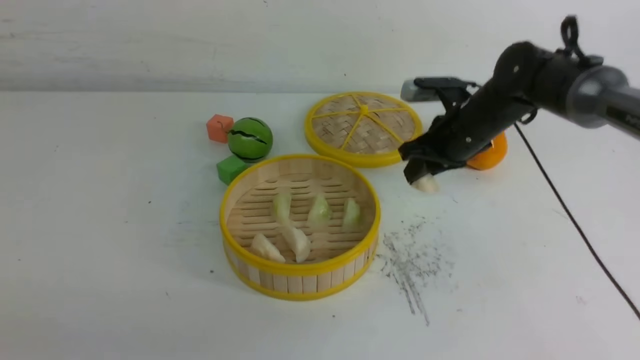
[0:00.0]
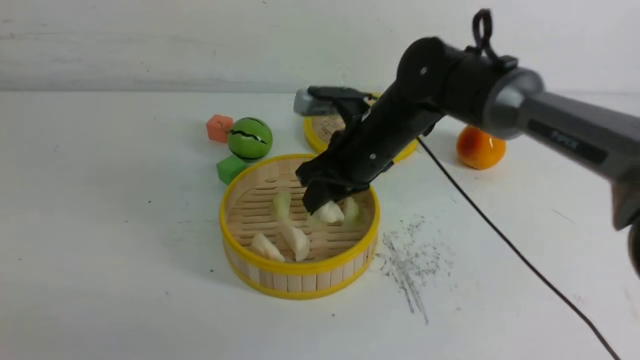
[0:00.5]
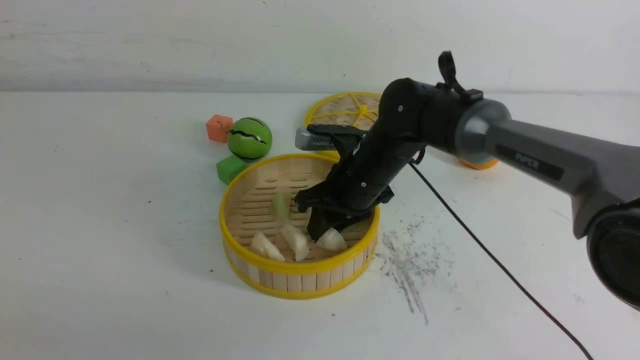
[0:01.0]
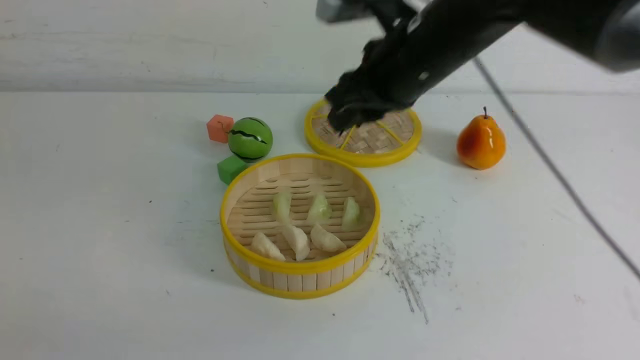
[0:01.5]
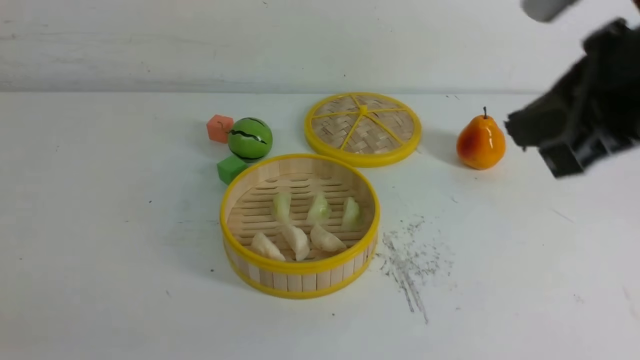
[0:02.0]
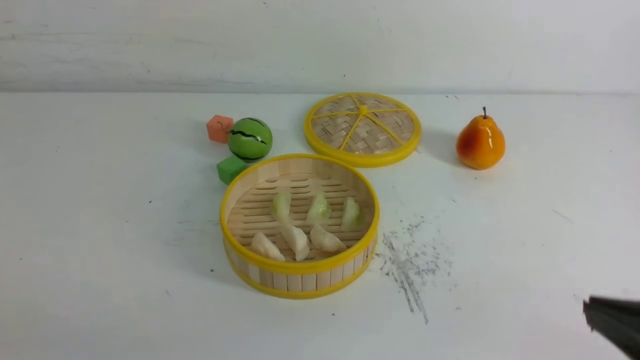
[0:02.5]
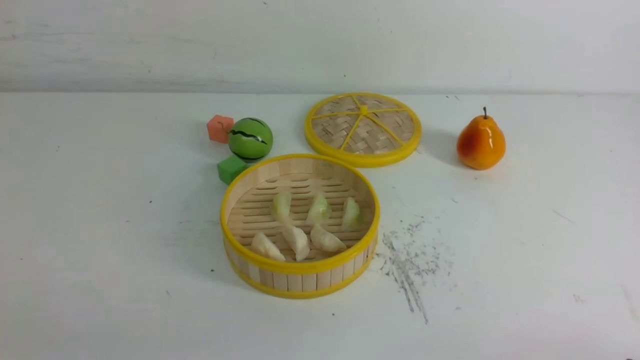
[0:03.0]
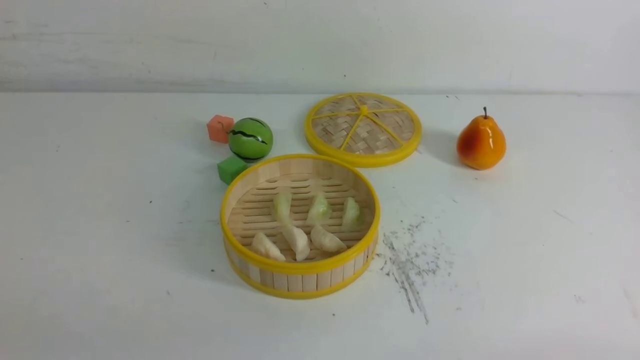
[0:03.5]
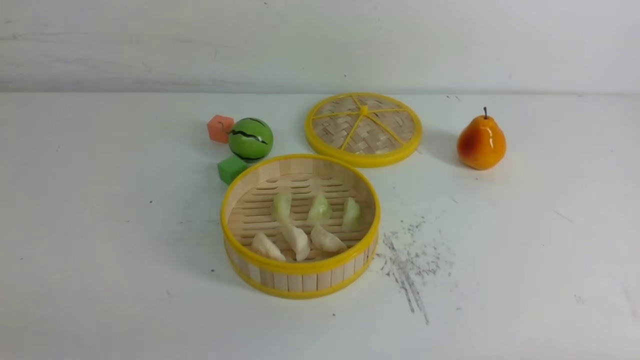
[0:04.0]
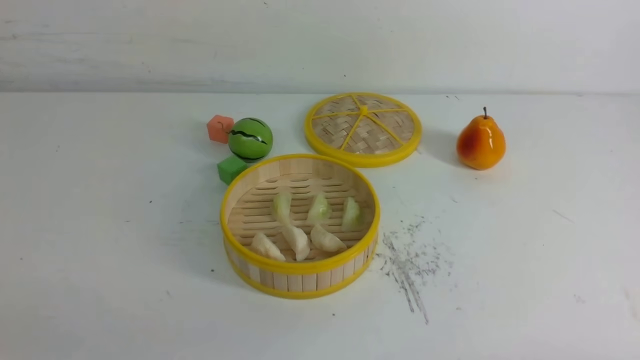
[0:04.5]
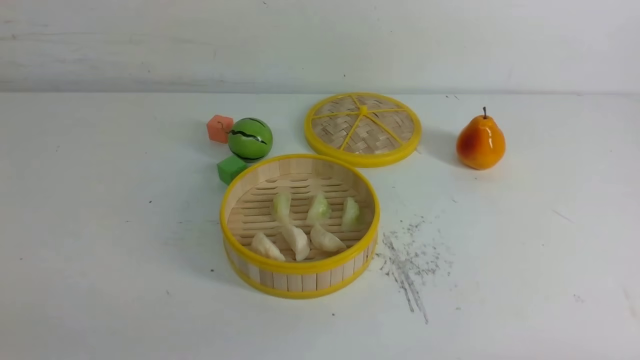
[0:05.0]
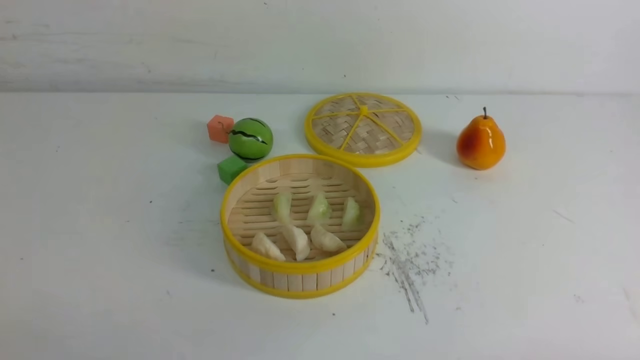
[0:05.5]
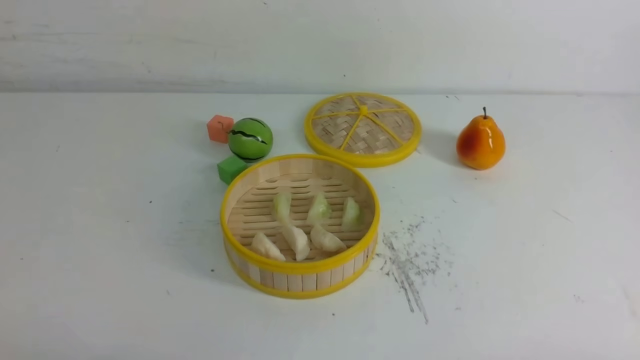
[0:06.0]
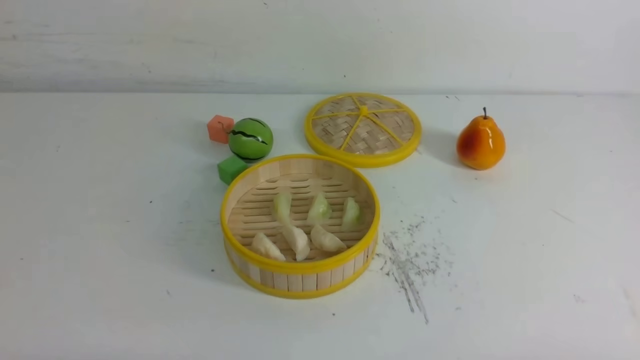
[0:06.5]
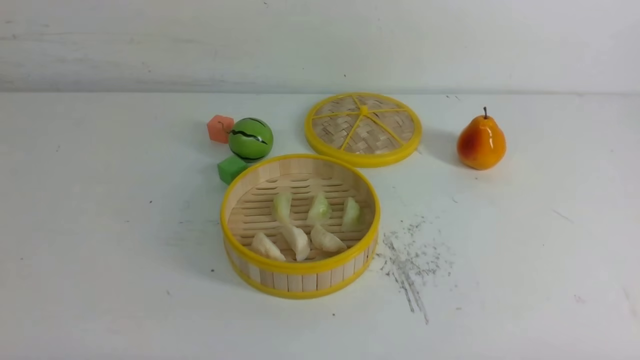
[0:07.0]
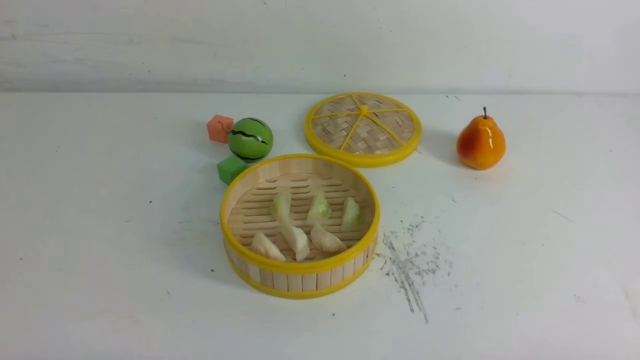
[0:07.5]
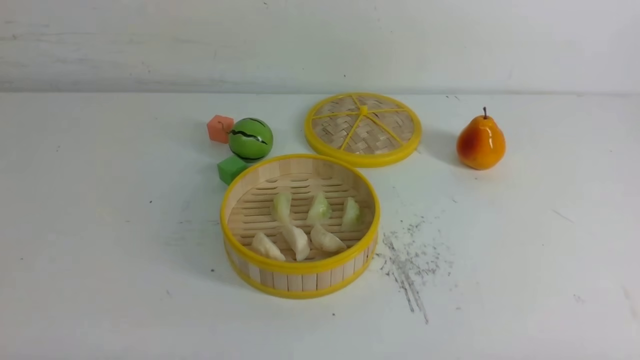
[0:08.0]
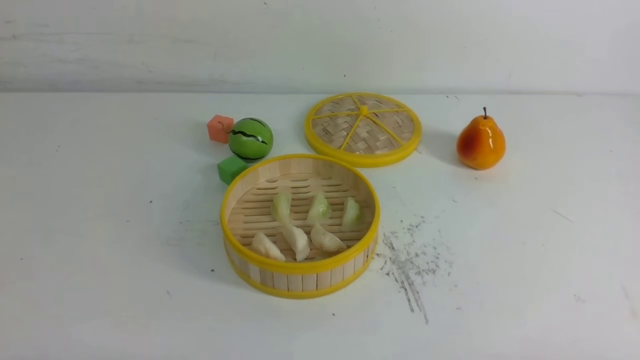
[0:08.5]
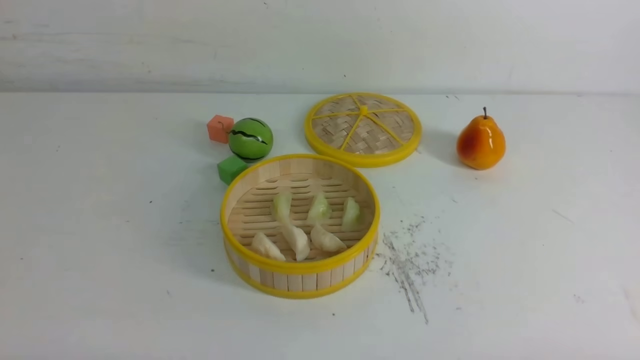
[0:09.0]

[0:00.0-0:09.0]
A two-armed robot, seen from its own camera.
Task of the whole recording: put the dumplings into the steamer on the white table.
0:00.0 to 0:02.0: The right gripper goes some 35 cm backward and upward, and closes up.
0:02.0 to 0:04.5: The right gripper shifts approximately 30 cm downward, backward and to the right.
0:07.0 to 0:09.0: Neither gripper changes place.

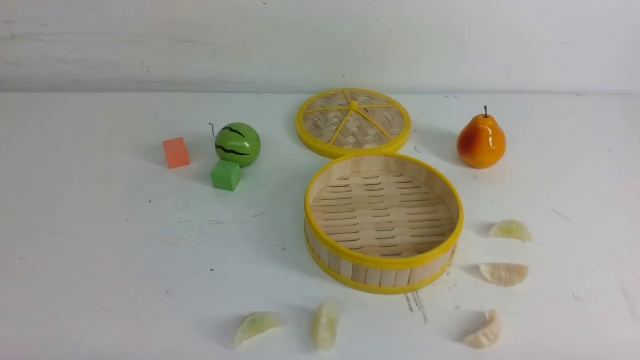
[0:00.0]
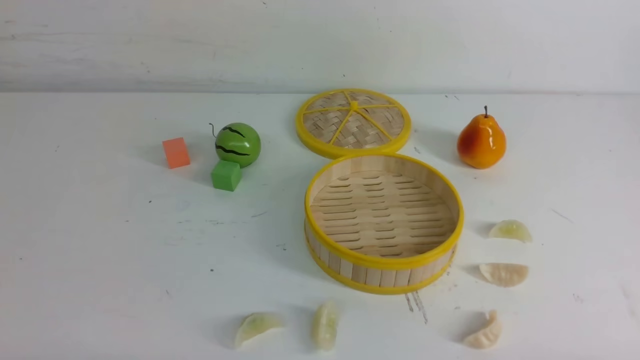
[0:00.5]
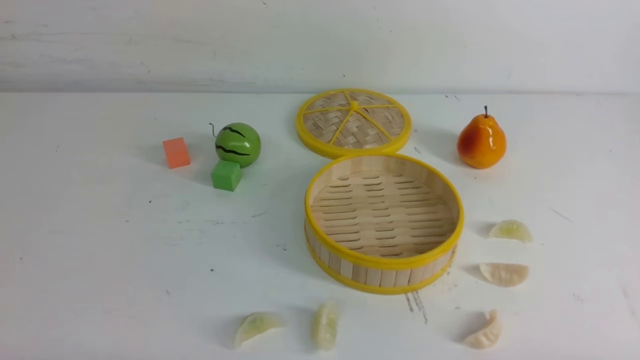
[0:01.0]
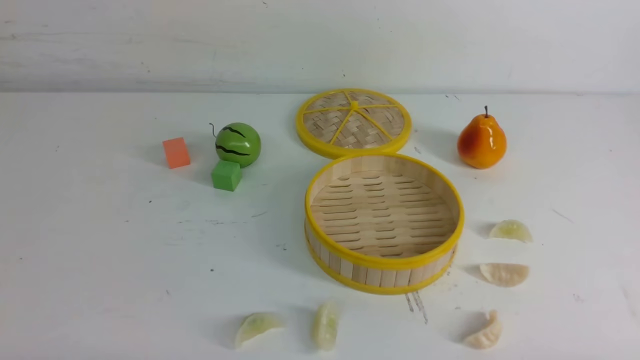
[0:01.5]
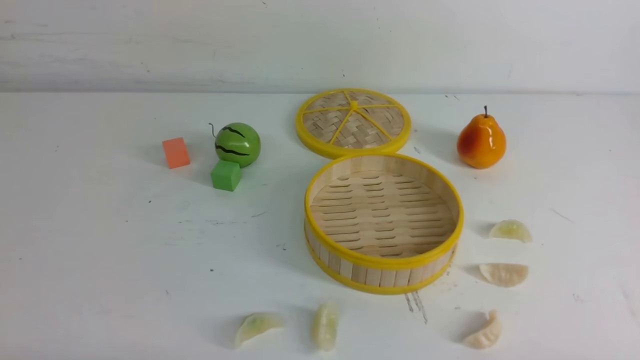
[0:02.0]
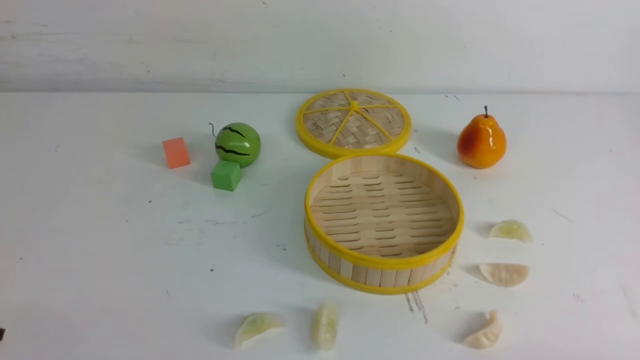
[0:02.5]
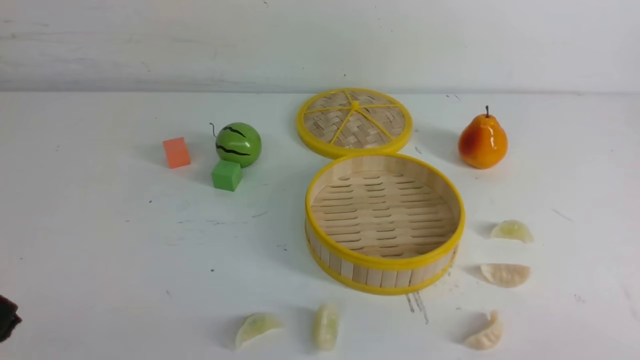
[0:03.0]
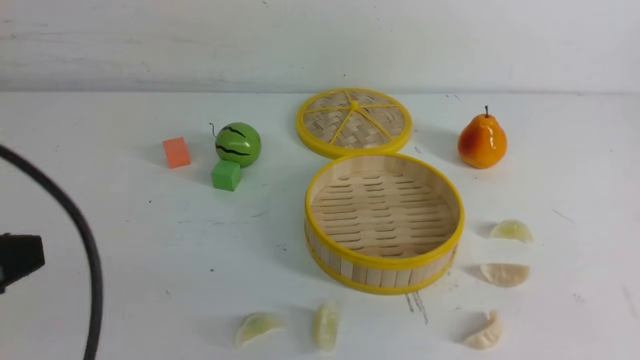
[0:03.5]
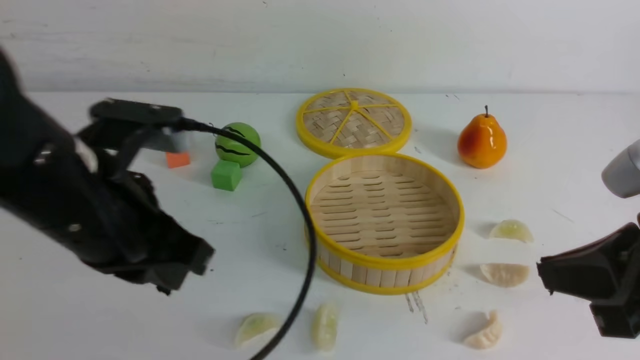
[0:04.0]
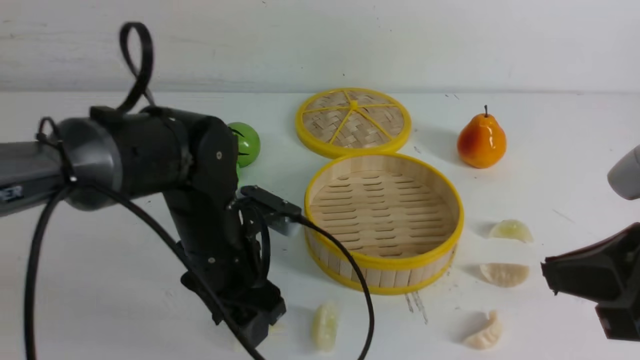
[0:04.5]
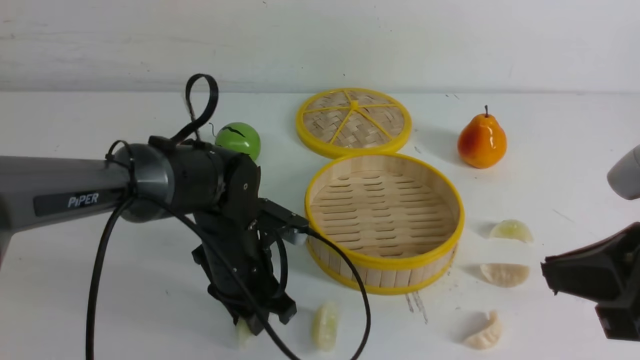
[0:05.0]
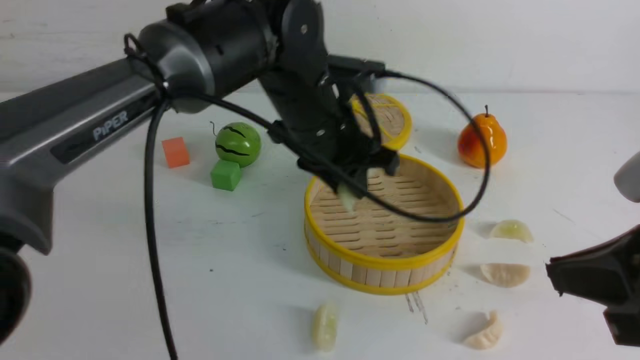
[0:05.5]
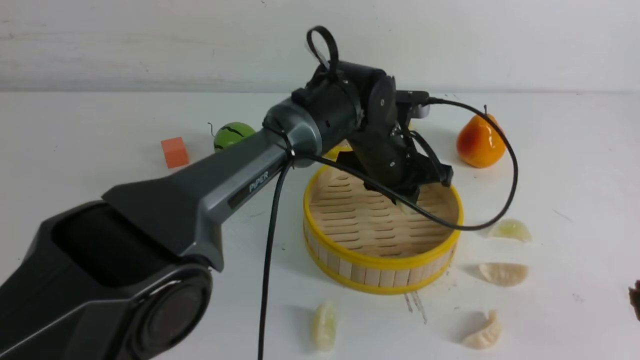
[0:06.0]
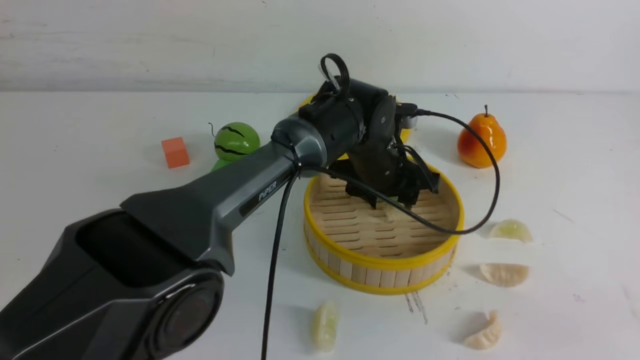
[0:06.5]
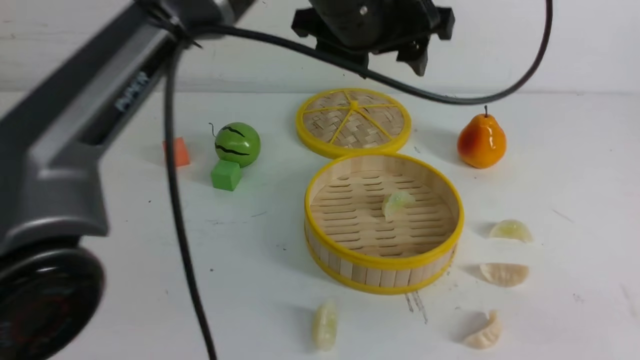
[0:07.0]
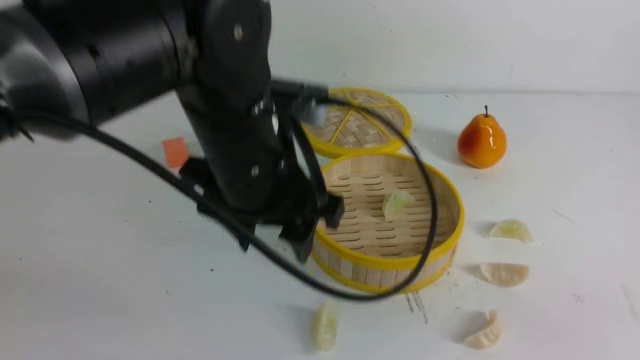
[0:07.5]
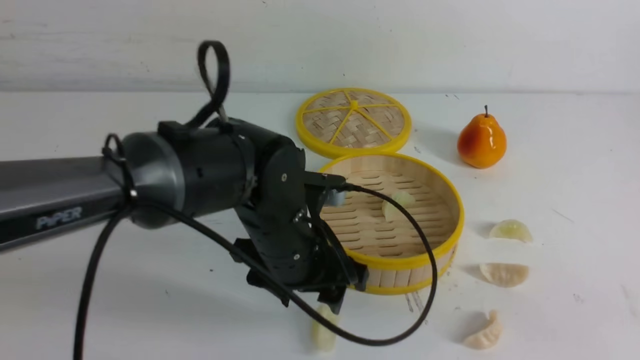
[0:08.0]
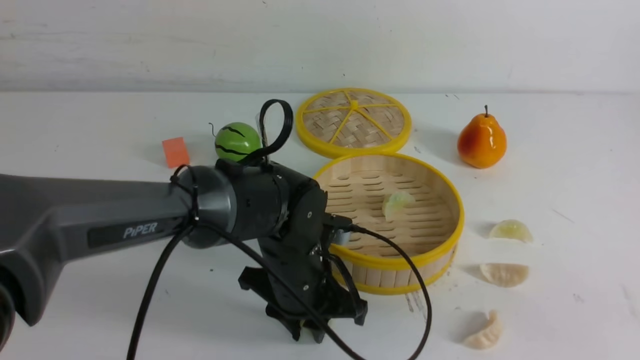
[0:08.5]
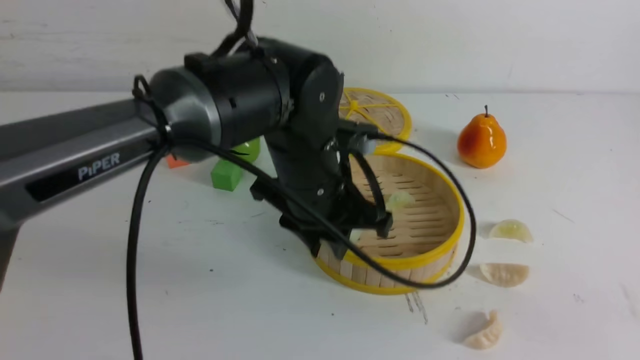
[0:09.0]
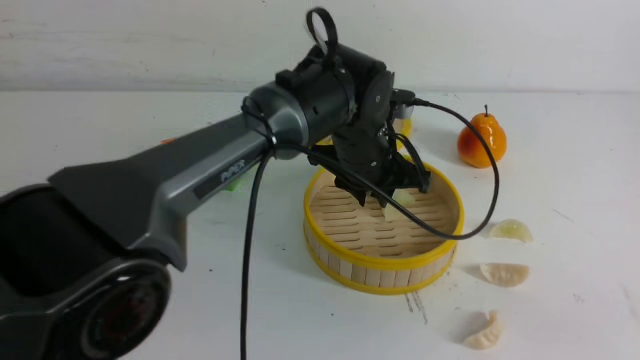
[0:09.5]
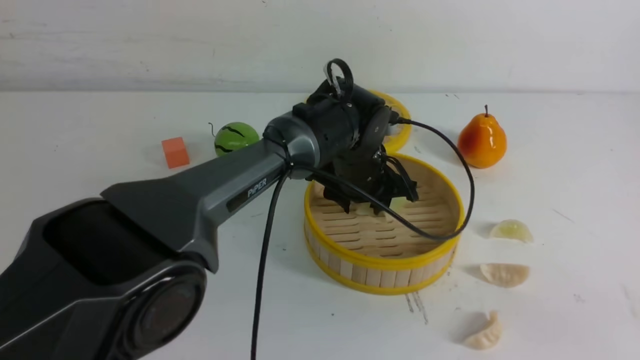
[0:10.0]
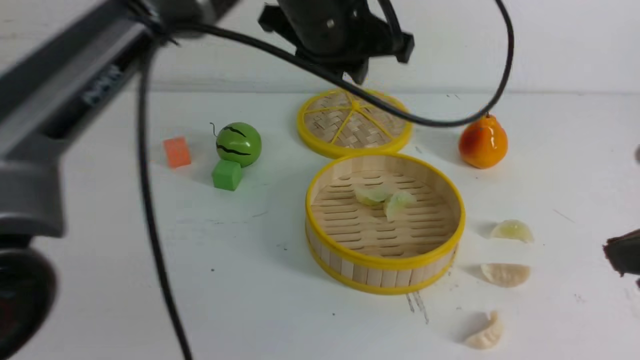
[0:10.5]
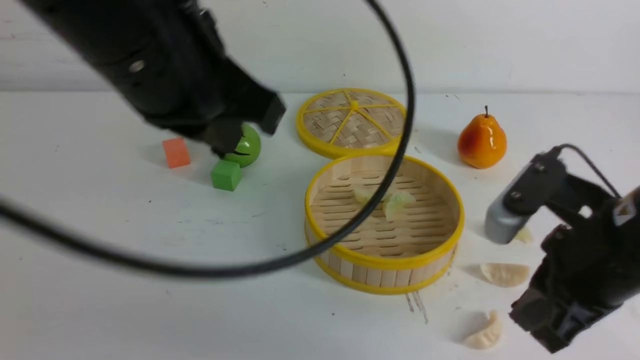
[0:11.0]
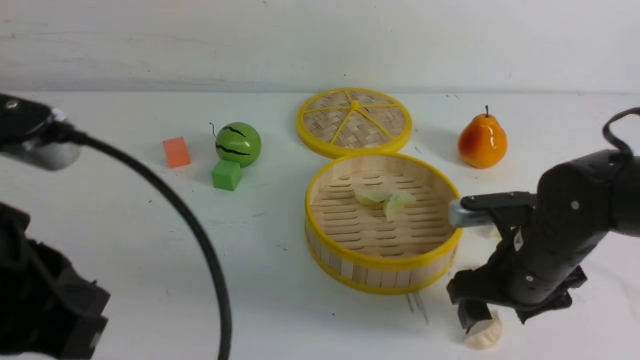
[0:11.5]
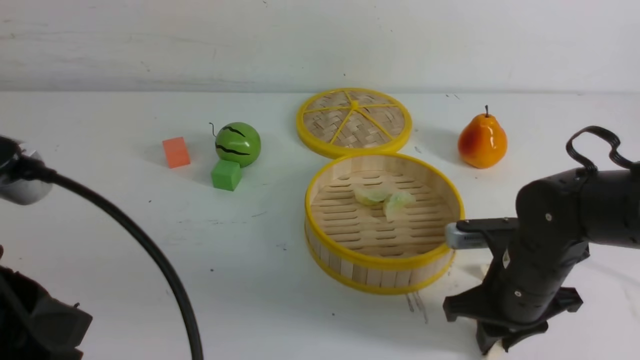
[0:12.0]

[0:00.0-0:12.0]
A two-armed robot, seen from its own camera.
Task of the whole recording: put the dumplings into the steamer on the white table.
Step, 0:00.0 to 0:04.5: use the left arm to grab a dumpling.
Step, 0:05.0 to 0:06.0: use the left arm to put the dumpling into the steamer.
Step, 0:06.5 to 0:08.5: use the left arm to grab a dumpling.
Step, 0:09.0 to 0:10.0: use the left arm to put the dumpling into the steamer.
0:02.0 to 0:04.0: The left gripper shifts approximately 25 cm forward, upward and to the right. The right gripper travels upward, forward and to the left by approximately 20 cm, and closes up.
0:04.0 to 0:06.0: The left gripper heads to the right, forward and downward, covering approximately 30 cm, and opens, then closes again; the right gripper travels backward by roughly 10 cm.
0:06.0 to 0:08.0: The left gripper shifts roughly 15 cm backward and to the left, moves some 20 cm upward and comes back, and opens its fingers.
0:08.0 to 0:10.0: The left gripper travels forward and to the right by approximately 15 cm.
0:10.0 to 0:12.0: The left gripper moves backward, to the left and upward, approximately 40 cm, and closes. The right gripper travels forward and downward by approximately 25 cm, and opens, then closes once more.
